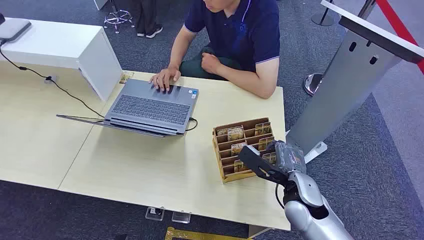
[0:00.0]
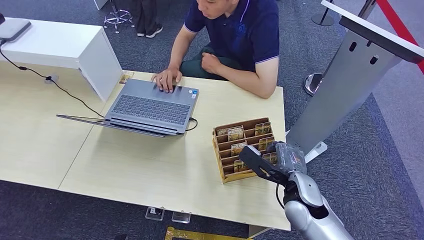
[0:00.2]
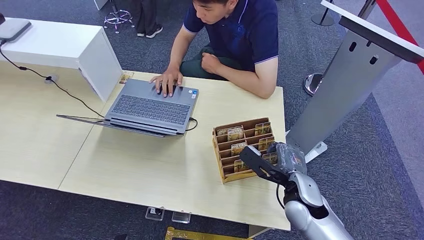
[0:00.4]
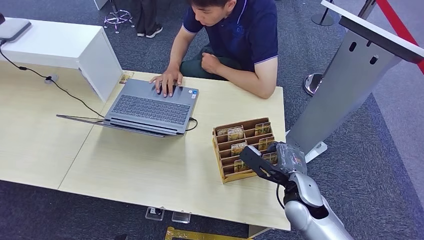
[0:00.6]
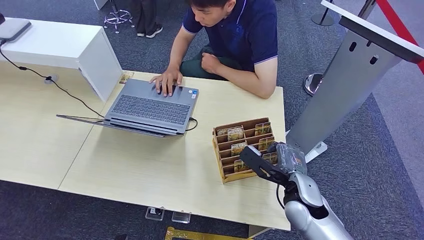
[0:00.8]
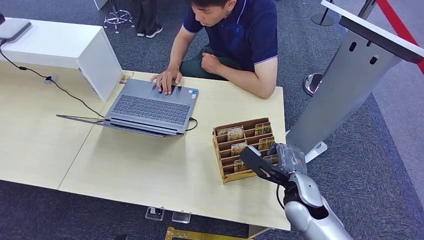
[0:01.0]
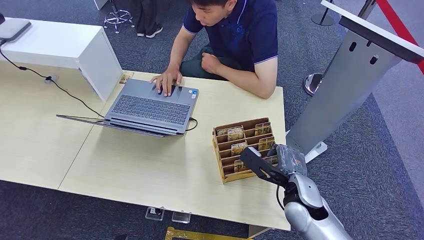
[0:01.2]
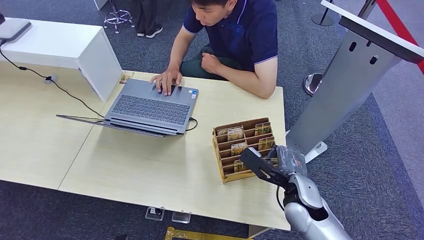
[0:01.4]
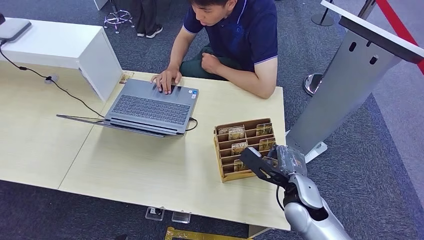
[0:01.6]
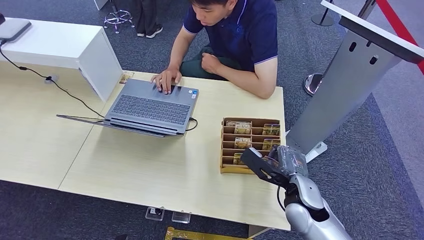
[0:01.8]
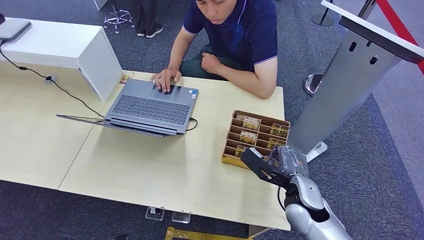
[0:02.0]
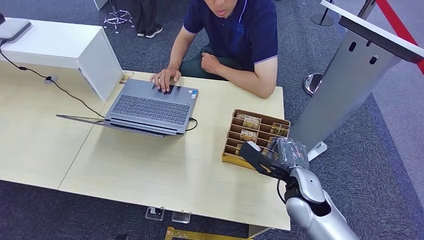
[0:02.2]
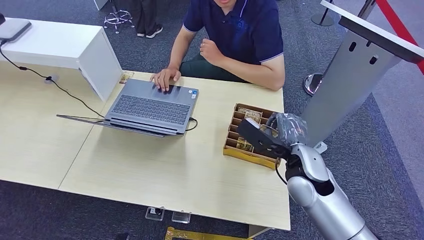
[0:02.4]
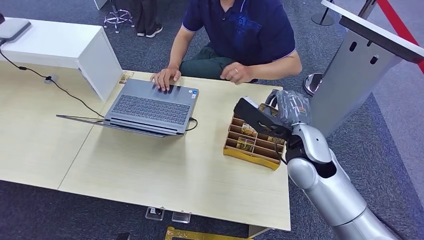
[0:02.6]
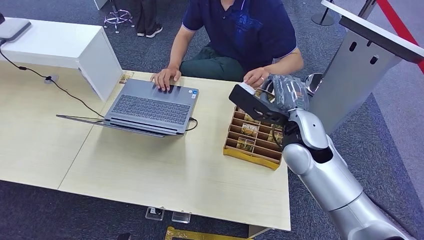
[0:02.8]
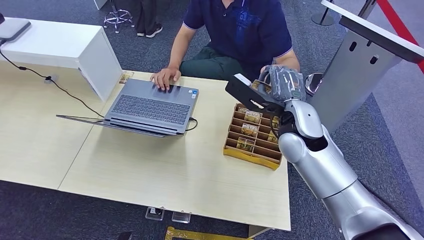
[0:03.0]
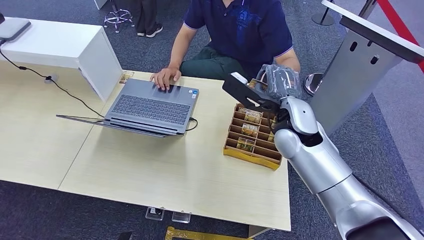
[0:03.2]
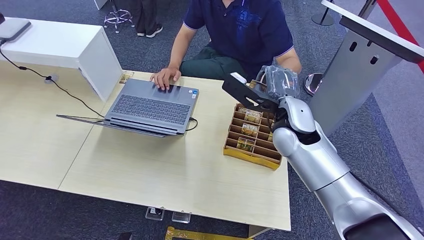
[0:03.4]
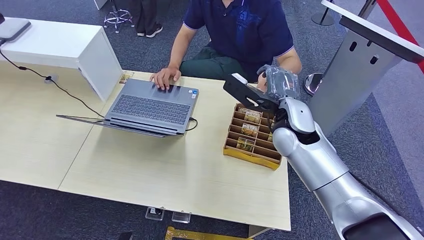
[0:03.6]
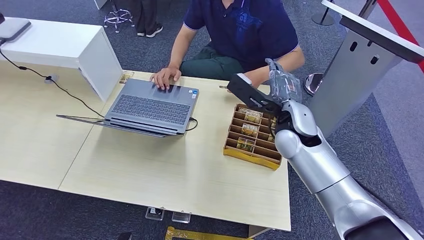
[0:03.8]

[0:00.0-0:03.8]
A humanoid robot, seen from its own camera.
Step, 0:00.0 to 0:02.6: Pick up the room card from the card holder.
Step, 0:02.8 to 0:03.8: Hand the room card to the target.
0:01.2 to 0:02.6: The right hand heads upward and forward, covering some 15 cm.
0:02.6 to 0:03.8: The right hand moves forward, some 5 cm.

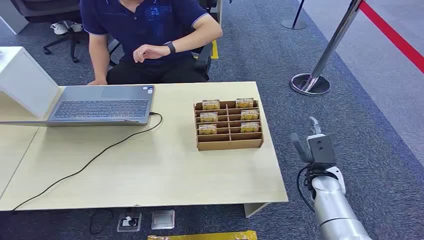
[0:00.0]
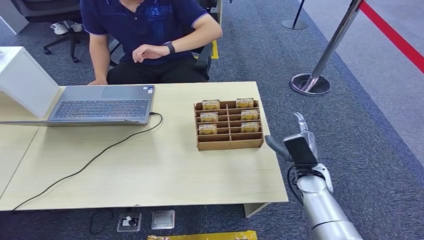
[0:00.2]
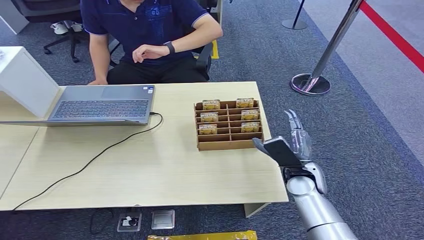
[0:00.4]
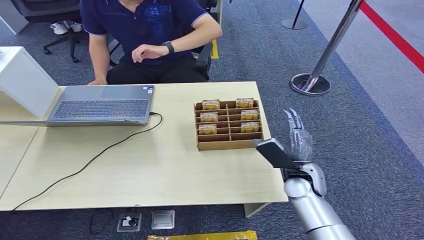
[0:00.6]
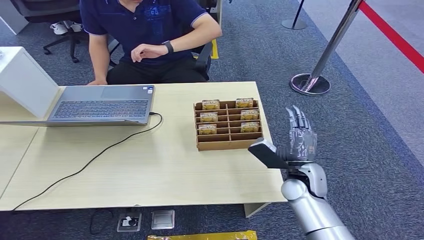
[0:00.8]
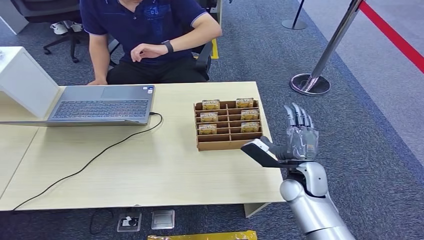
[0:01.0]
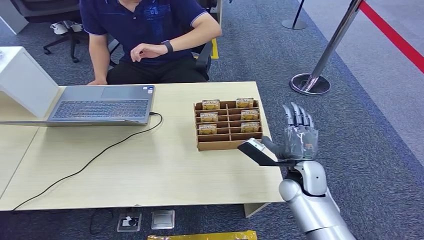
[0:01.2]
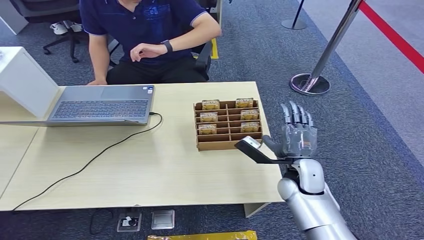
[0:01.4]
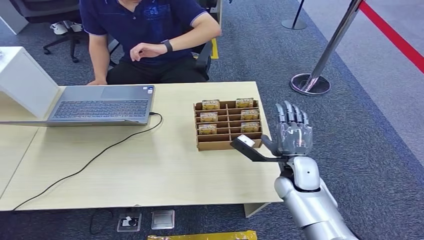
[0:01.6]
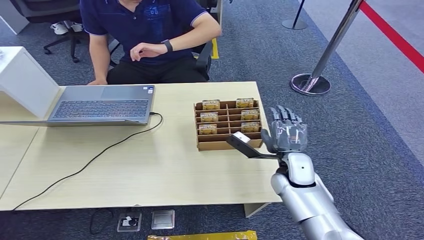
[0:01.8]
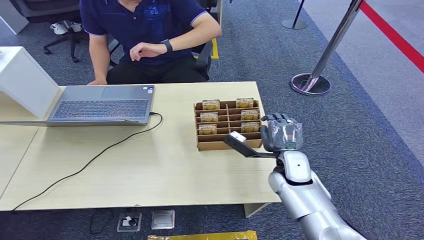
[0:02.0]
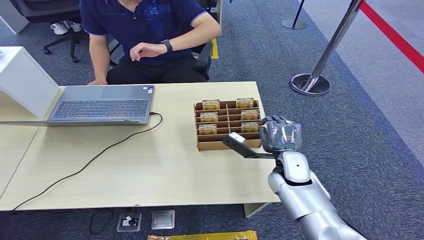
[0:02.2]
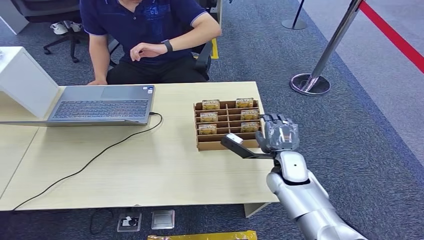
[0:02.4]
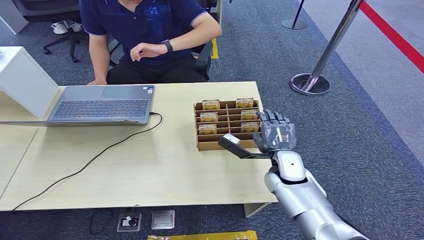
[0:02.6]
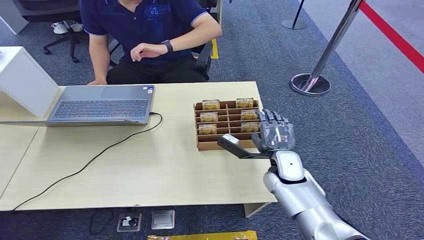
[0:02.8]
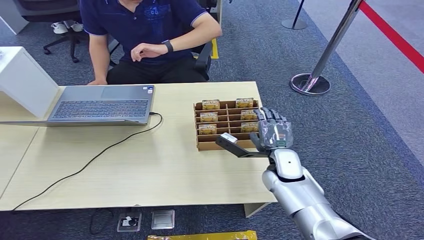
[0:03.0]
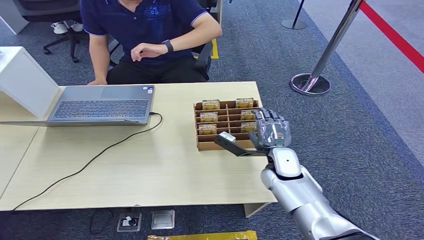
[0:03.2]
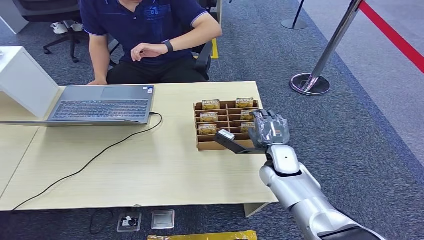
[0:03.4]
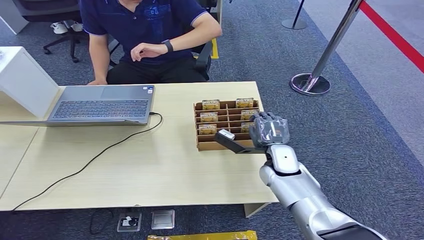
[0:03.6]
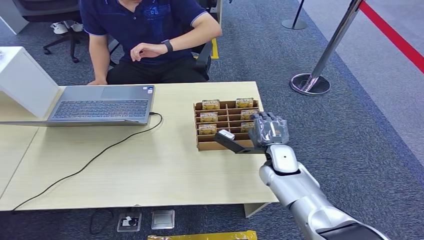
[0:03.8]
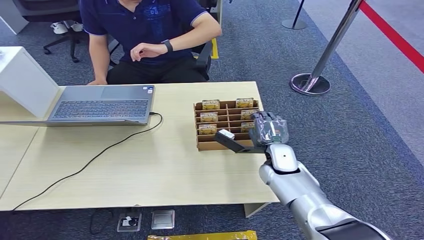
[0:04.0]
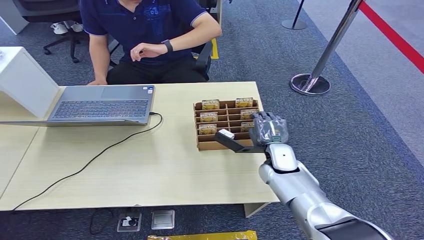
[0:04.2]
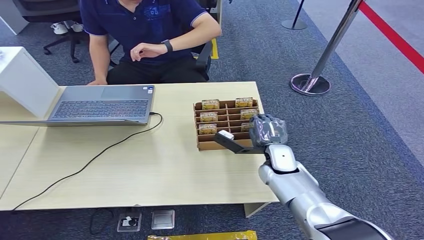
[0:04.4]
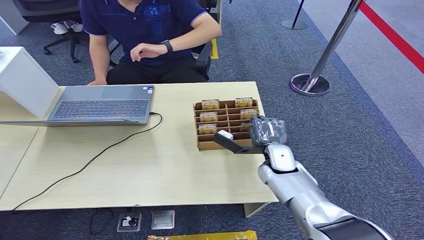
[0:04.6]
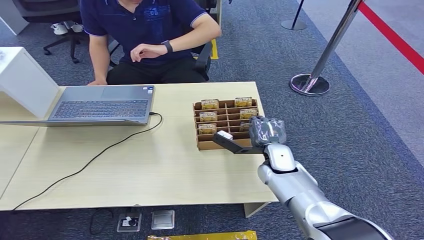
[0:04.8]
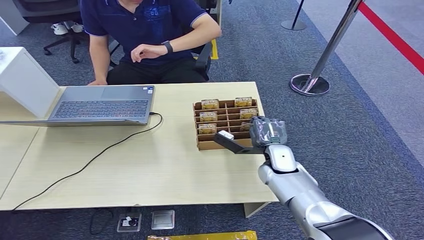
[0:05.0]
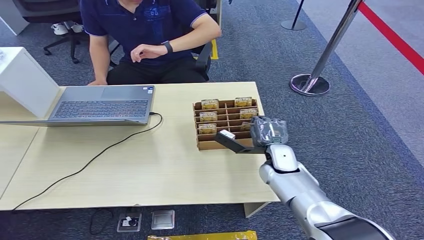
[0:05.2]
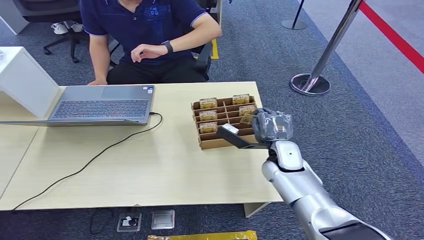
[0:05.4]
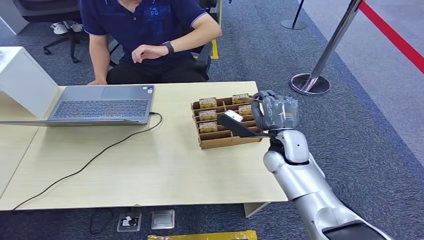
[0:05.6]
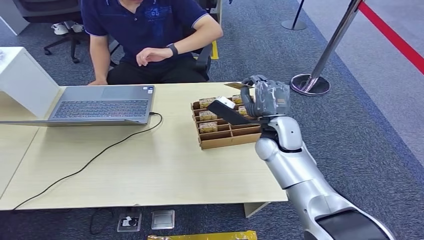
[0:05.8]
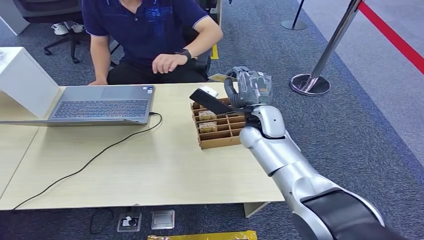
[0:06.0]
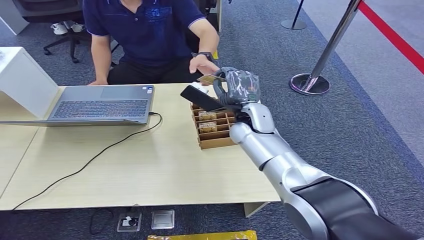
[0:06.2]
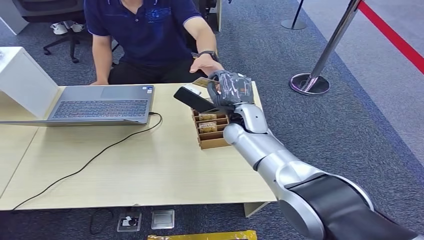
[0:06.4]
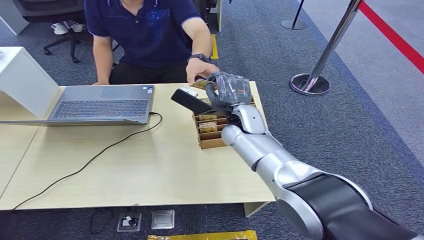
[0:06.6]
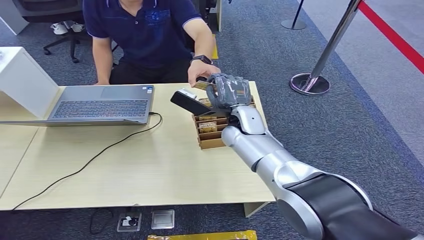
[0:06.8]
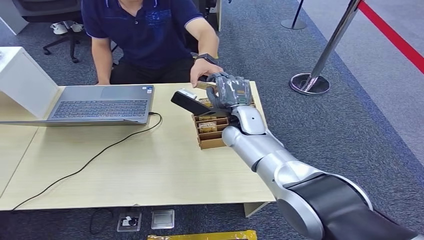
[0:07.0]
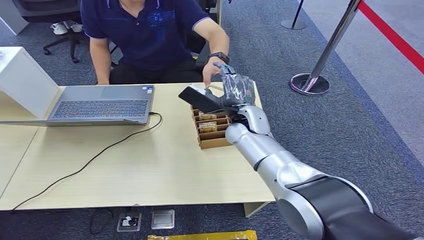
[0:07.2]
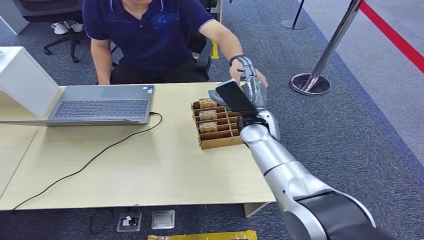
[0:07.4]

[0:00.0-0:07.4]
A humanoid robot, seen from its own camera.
Step, 0:00.0 to 0:06.0: Pick up the room card from the card holder.
Step, 0:06.2 to 0:07.4: Hand the room card to the target.
0:01.4 to 0:03.0: The right hand moves roughly 5 cm.
0:03.0 to 0:04.4: The hands move only a little.
0:04.4 to 0:06.0: The right hand is displaced upward and forward by approximately 15 cm.
